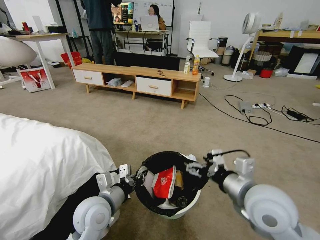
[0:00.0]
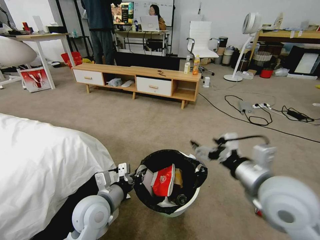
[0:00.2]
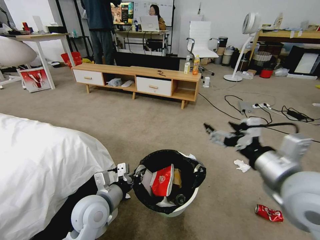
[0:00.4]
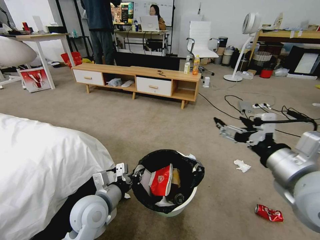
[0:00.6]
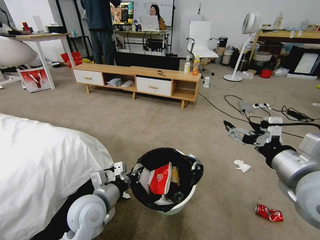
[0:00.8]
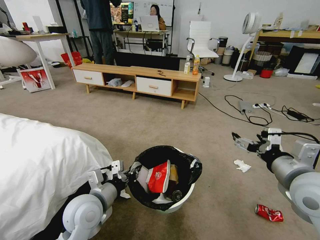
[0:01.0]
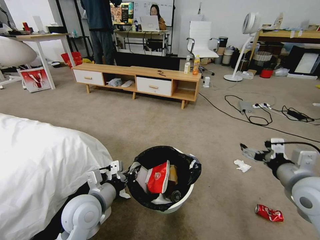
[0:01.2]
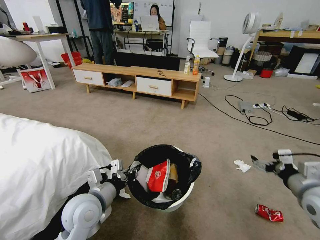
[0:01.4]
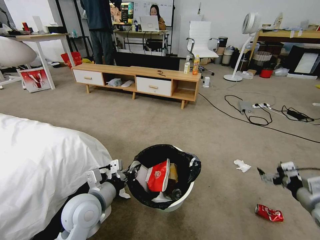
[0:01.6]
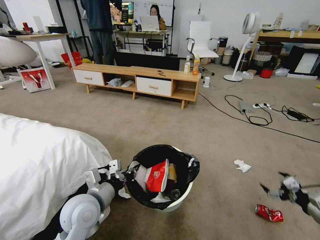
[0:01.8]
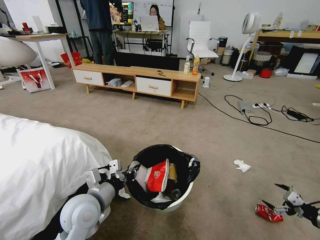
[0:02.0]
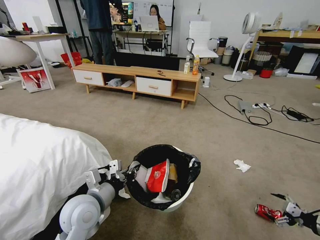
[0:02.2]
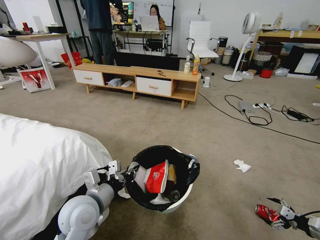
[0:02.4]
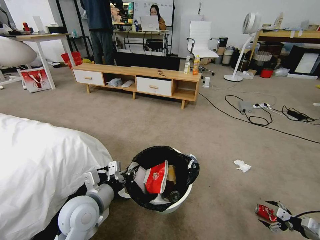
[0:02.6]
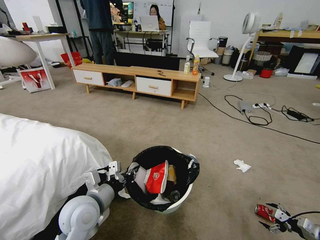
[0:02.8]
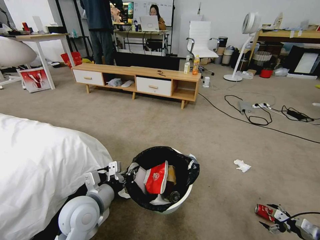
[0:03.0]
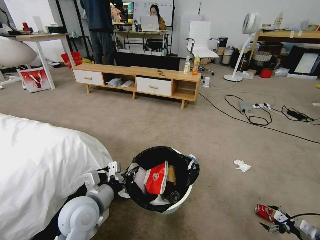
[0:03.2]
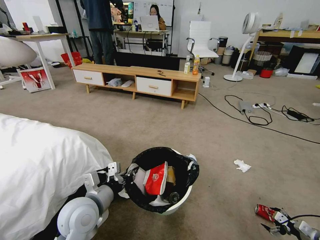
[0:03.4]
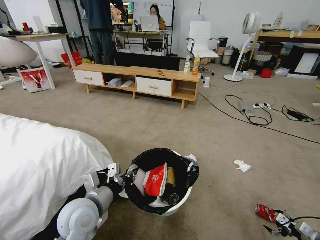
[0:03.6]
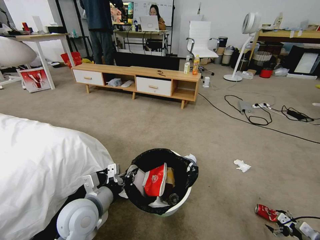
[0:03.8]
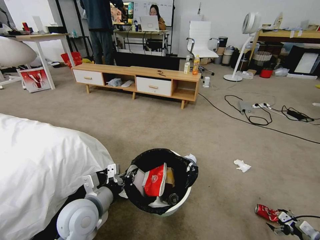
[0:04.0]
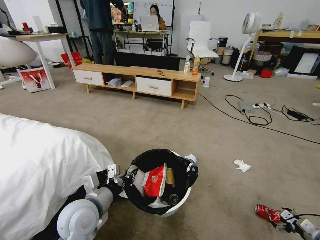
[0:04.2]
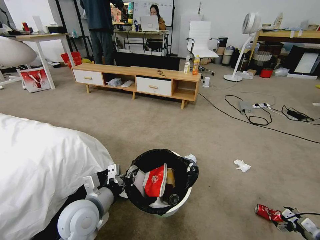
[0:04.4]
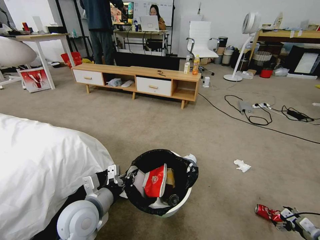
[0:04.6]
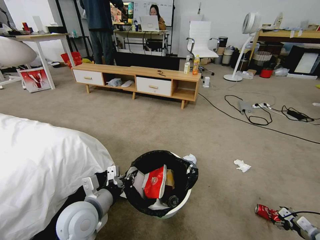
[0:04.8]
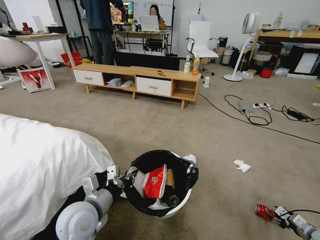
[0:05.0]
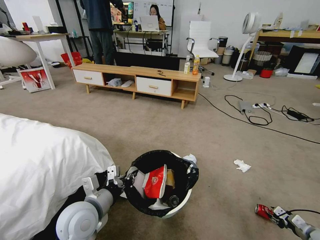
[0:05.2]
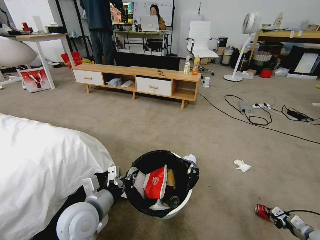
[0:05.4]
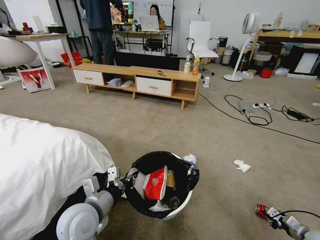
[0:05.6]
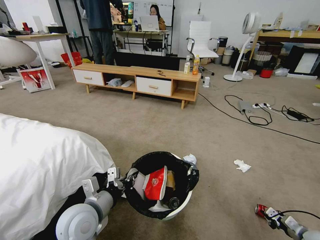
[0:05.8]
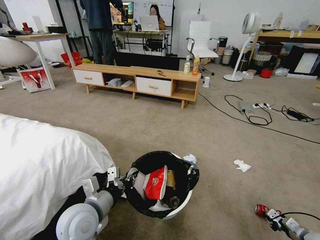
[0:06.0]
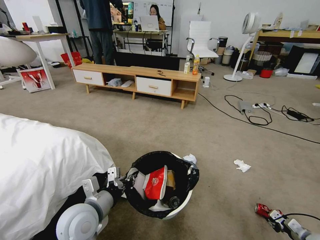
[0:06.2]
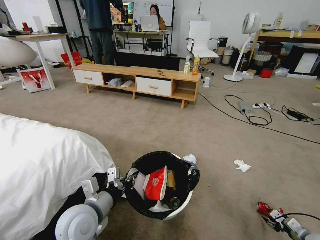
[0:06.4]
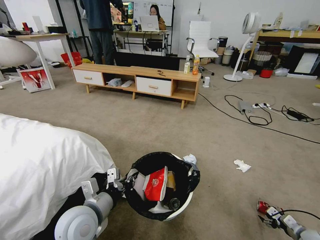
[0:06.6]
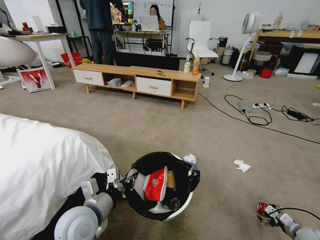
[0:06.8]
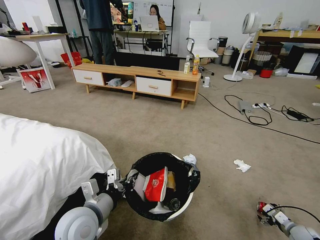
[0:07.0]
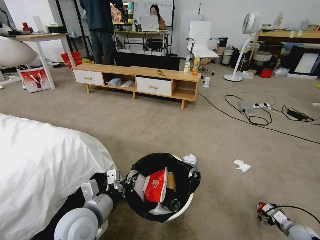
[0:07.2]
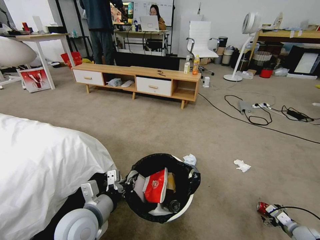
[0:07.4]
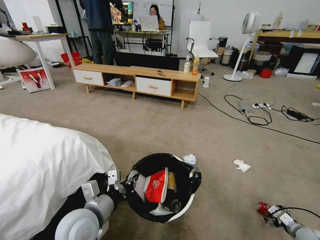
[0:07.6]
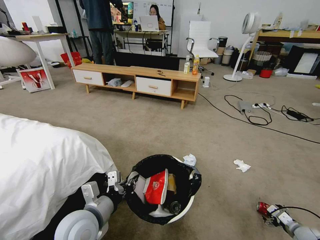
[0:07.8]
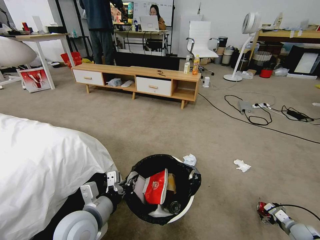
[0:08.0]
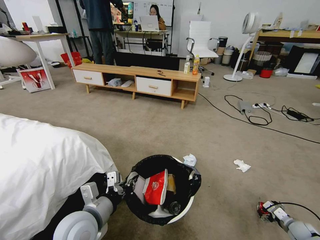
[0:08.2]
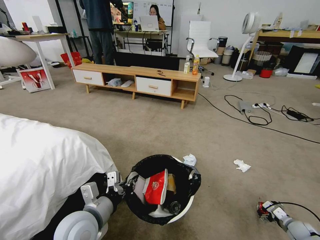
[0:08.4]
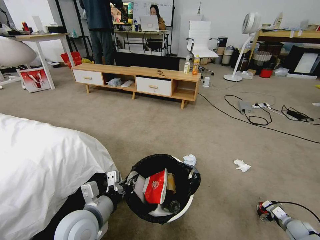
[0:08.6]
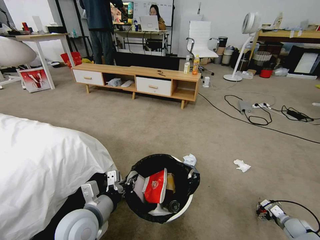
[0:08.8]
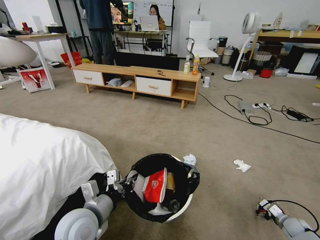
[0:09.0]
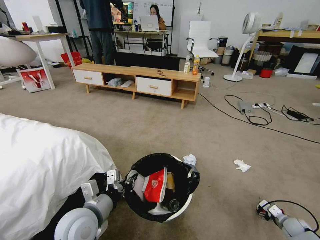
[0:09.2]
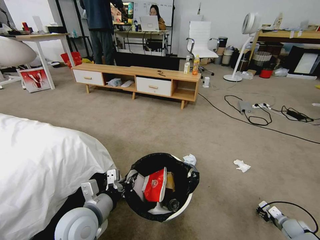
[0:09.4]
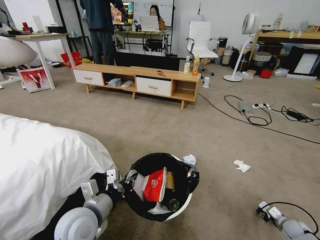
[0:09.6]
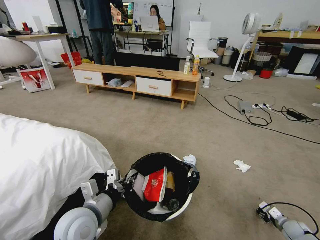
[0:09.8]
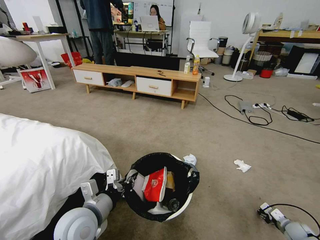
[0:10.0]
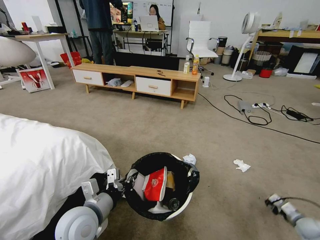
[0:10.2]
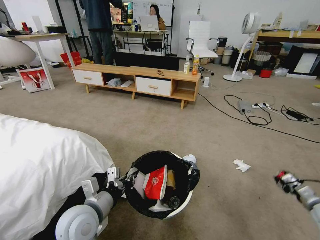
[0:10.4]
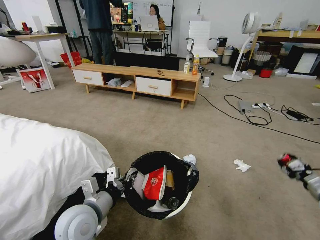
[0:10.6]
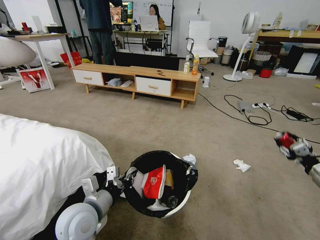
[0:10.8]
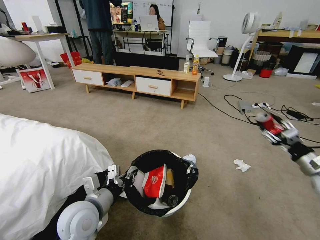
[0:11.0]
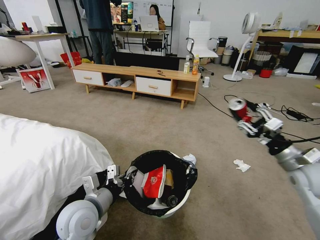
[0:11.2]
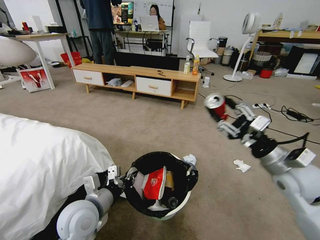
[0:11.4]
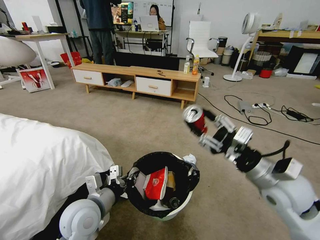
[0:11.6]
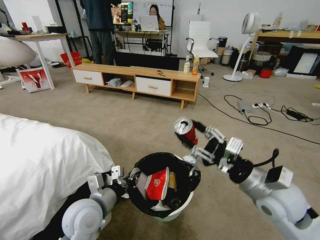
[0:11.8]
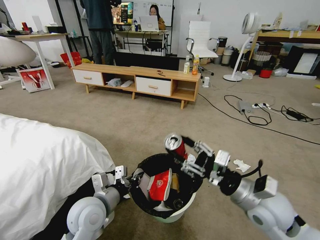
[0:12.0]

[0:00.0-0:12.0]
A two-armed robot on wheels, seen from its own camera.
Task of the whole recording: Pick up the trash bin and place the garbage on the floor into it.
0:00.0 to 0:01.6: The right gripper shifts roughly 25 cm to the right.
0:01.6 to 0:03.0: The right gripper moves downward and to the right, approximately 25 cm.
0:03.0 to 0:04.4: The grippers make only small movements.
0:04.4 to 0:06.0: The right gripper closes its fingers.
0:06.0 to 0:07.6: The right gripper opens up.
0:07.6 to 0:09.0: The grippers make only small movements.
0:09.0 to 0:10.4: The right gripper goes about 15 cm upward, and closes its fingers.
0:10.4 to 0:12.0: The right gripper goes roughly 40 cm to the left and upward.

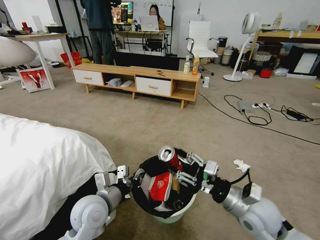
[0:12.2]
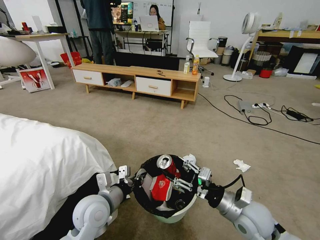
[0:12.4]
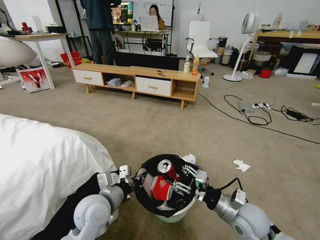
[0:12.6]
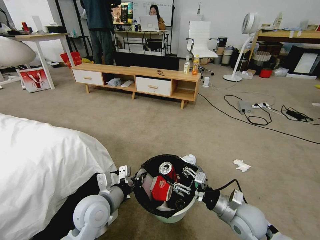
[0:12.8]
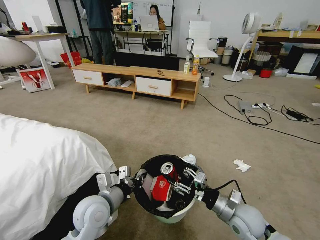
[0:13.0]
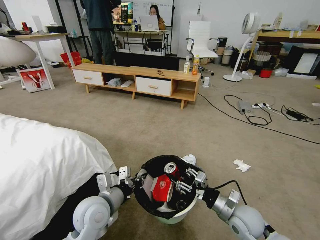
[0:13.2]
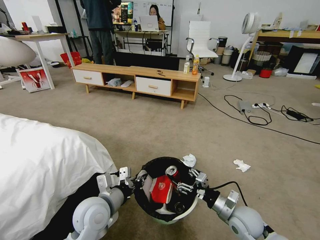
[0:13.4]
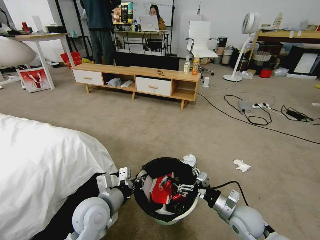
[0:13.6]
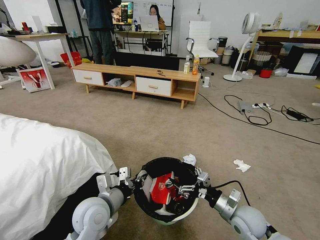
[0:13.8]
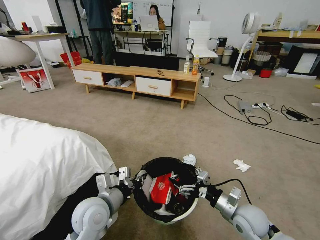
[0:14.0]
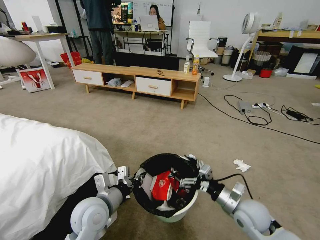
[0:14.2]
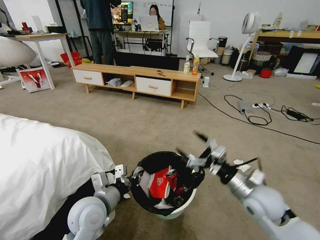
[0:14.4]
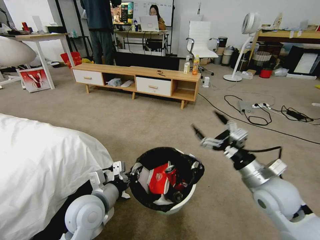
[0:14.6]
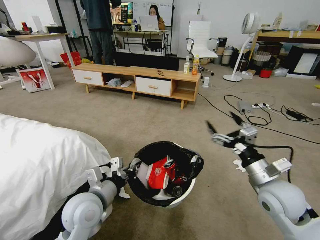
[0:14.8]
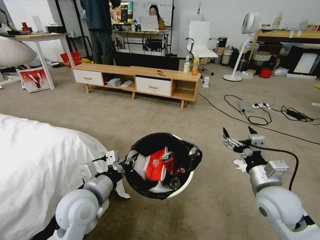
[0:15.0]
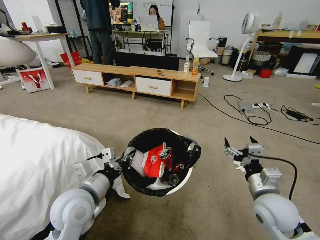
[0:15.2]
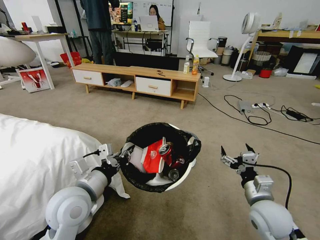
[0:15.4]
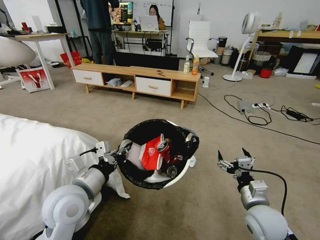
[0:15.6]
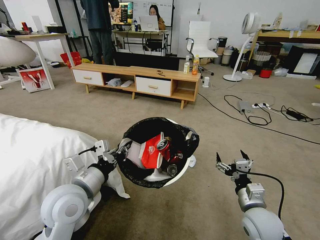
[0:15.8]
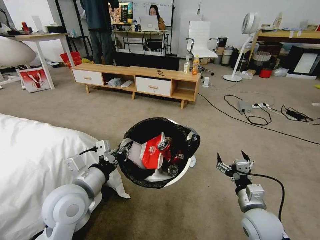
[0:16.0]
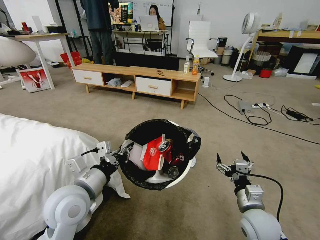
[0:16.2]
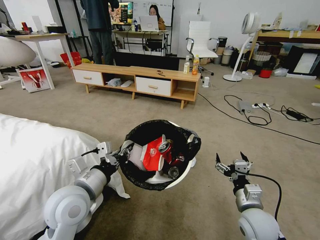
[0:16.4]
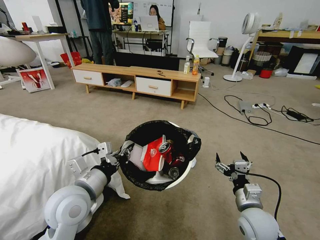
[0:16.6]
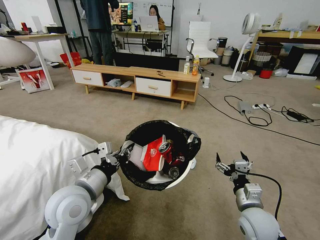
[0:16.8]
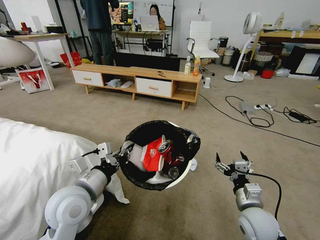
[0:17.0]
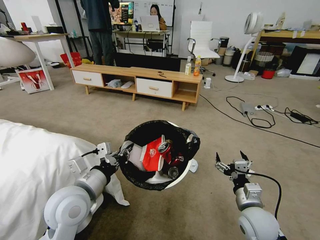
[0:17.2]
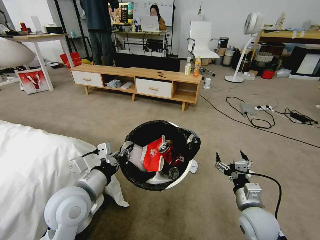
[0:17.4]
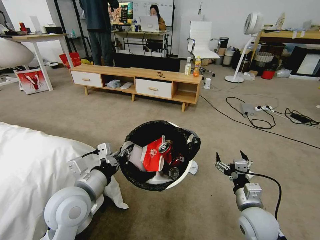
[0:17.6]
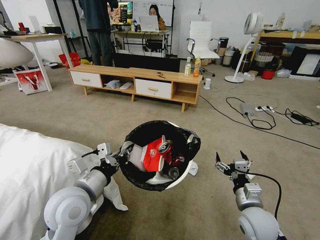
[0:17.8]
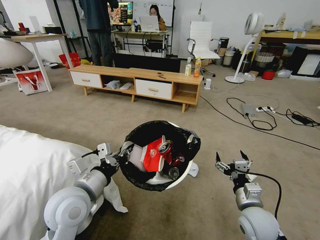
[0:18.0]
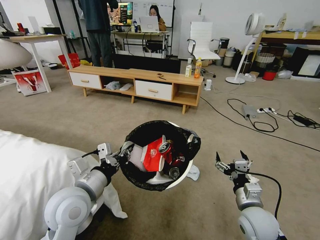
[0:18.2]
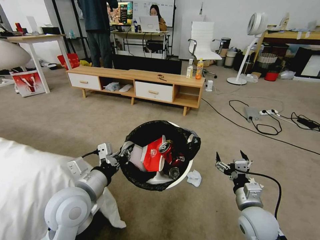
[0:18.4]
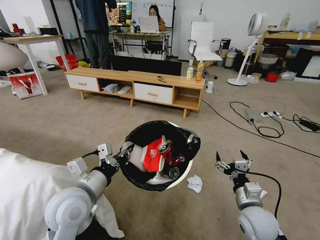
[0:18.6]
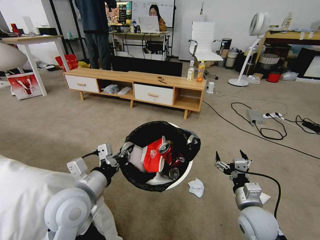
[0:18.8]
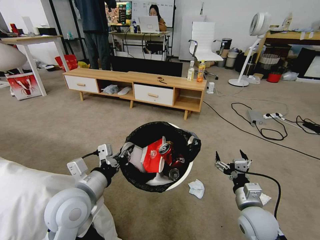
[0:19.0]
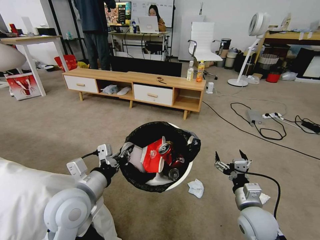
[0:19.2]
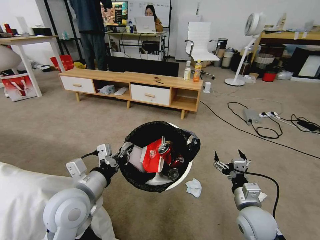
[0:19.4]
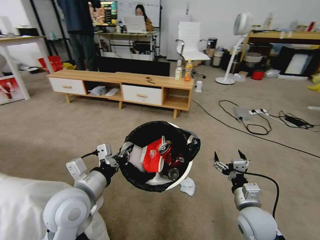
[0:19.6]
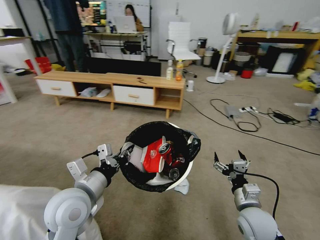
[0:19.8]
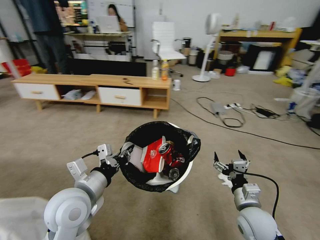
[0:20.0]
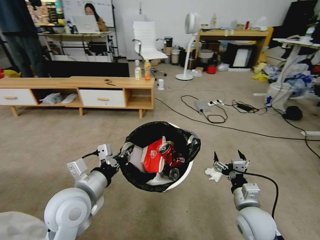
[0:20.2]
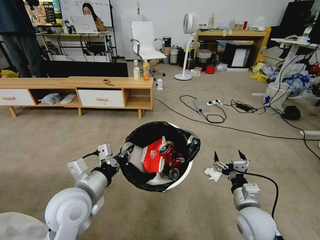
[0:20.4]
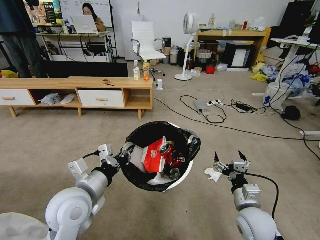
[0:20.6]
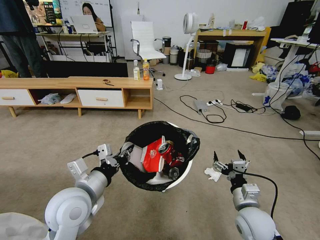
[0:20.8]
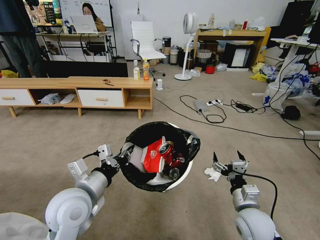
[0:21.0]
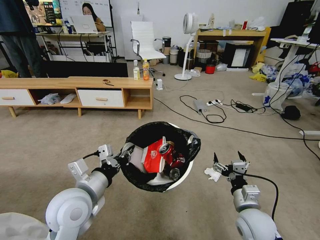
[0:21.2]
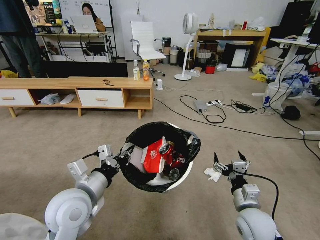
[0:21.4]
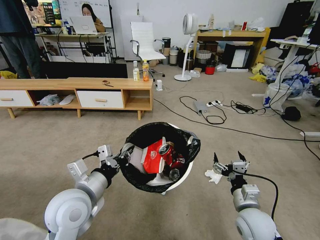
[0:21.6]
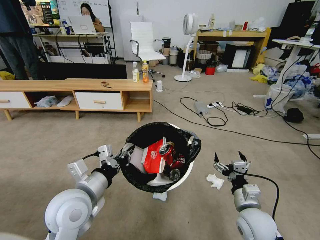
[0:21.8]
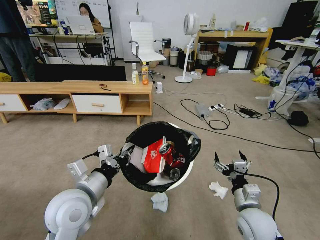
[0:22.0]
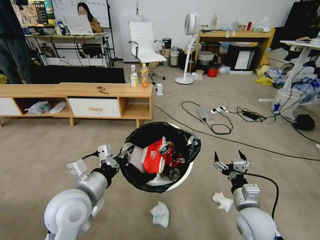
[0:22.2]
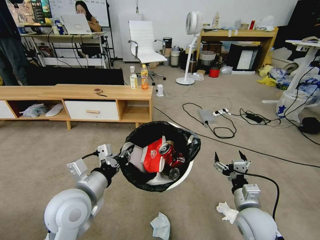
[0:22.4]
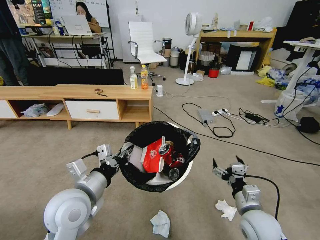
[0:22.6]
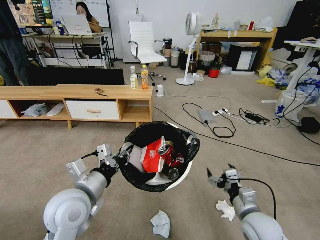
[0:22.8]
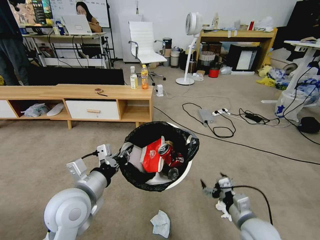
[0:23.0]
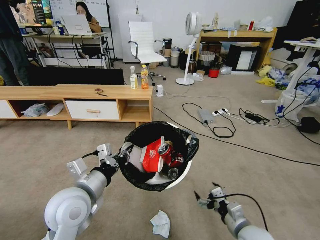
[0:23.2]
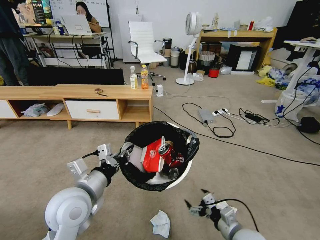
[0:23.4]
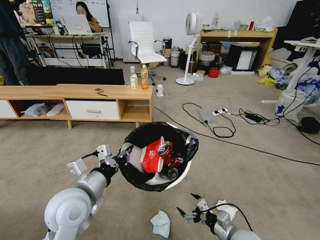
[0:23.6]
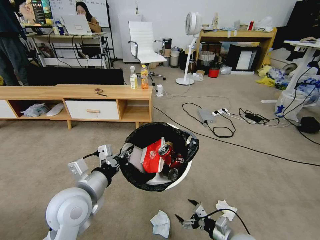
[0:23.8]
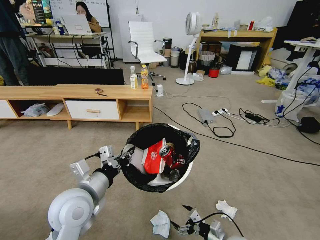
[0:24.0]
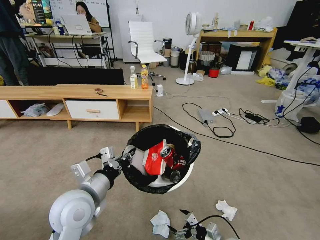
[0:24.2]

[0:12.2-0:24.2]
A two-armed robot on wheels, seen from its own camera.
Task of the whole recording: Pick up the trash bin and place the garbage on the floor into it.
0:12.2 to 0:13.8: The right gripper heads downward, covering approximately 10 cm, and opens.
0:13.8 to 0:15.2: The left gripper goes some 5 cm upward; the right gripper shifts some 10 cm upward.
0:15.2 to 0:16.6: The right gripper moves downward, some 5 cm.
0:22.6 to 0:24.2: The right gripper goes some 20 cm downward.
